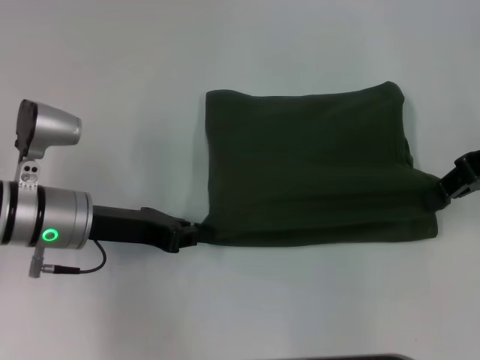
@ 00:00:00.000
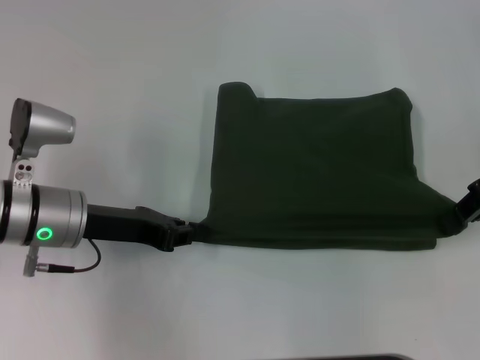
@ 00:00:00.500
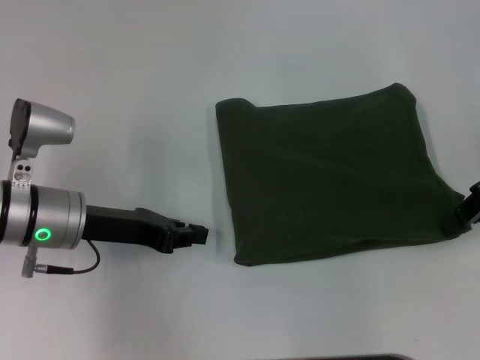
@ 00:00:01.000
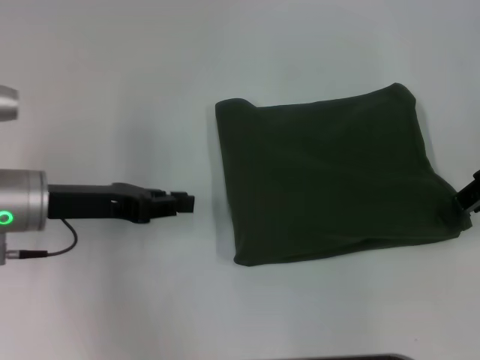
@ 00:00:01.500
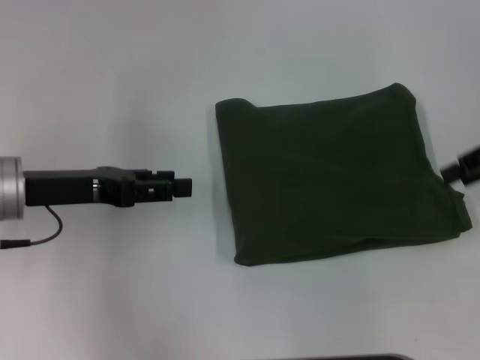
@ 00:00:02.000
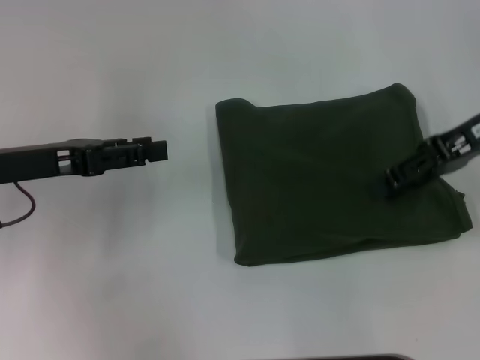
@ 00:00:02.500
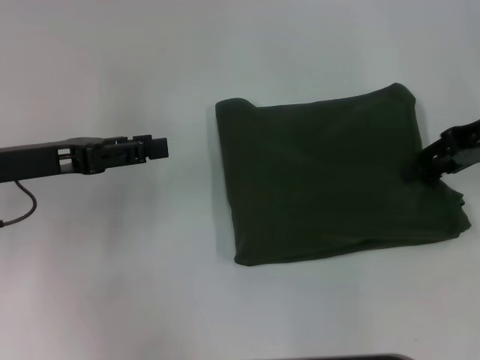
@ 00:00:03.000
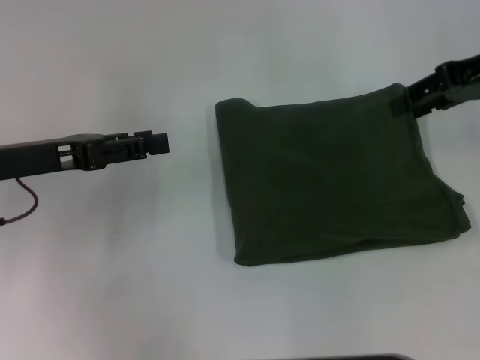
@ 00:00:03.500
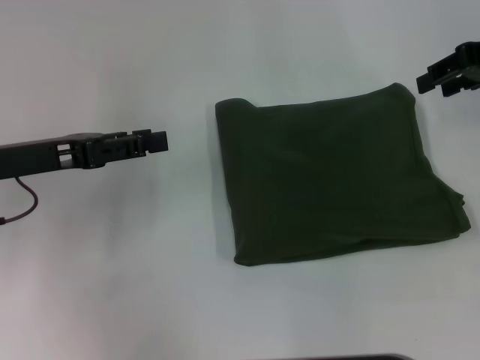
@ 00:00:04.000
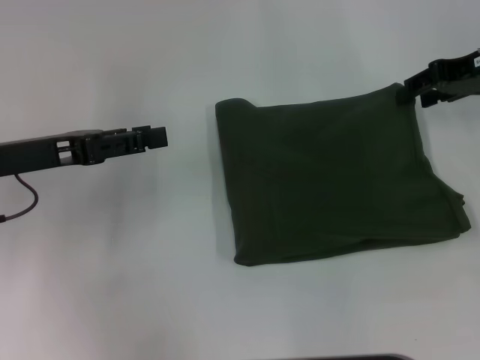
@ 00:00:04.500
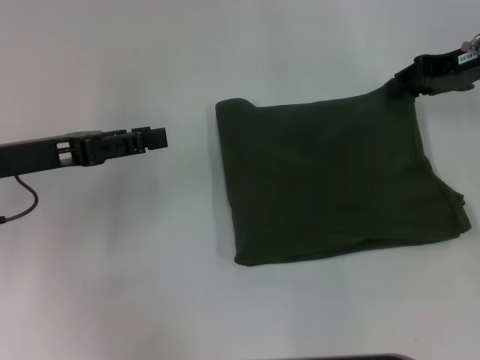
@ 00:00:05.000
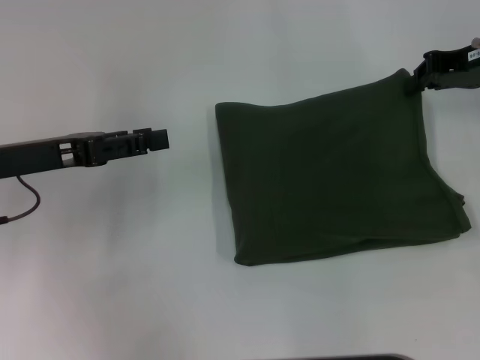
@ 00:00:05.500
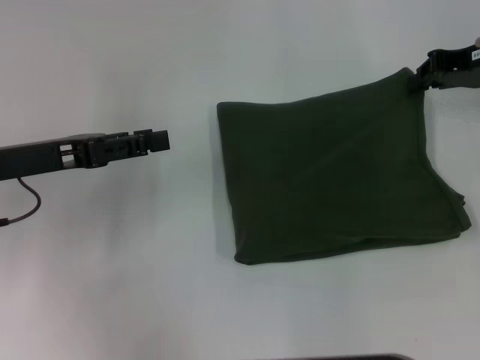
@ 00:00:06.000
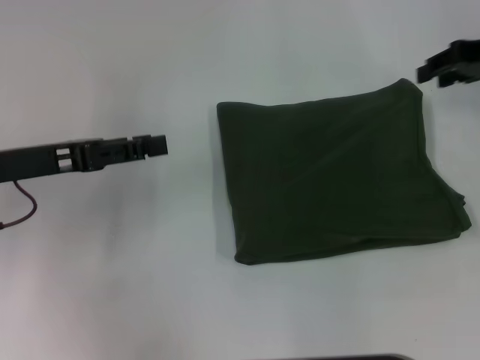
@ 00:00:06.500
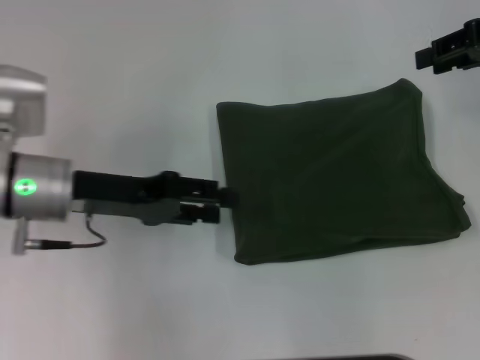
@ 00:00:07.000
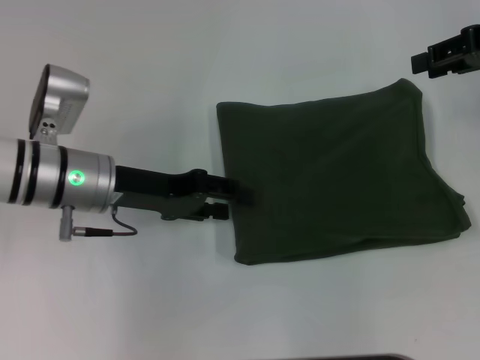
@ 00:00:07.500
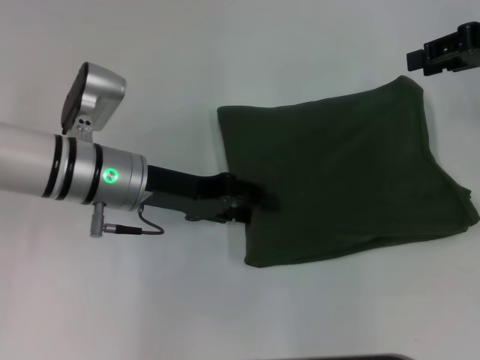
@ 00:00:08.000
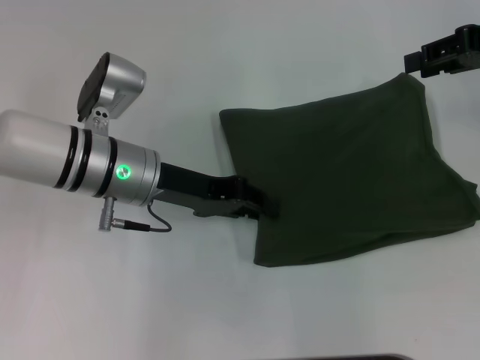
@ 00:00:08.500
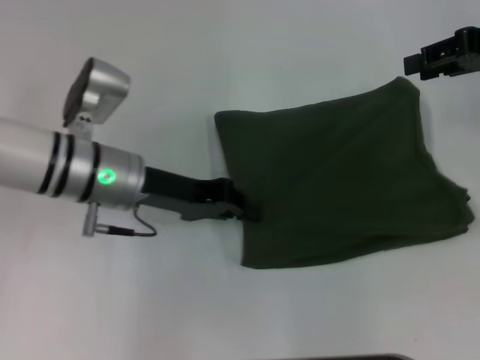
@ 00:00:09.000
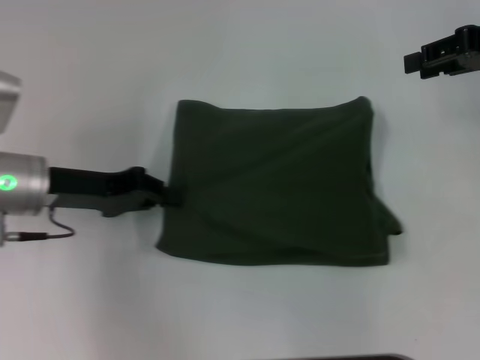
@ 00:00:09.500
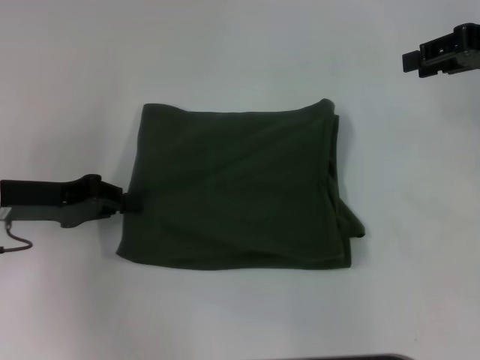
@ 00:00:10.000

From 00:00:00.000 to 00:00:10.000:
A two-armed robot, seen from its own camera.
From 00:00:00.000 to 00:00:02.000: The left gripper ends up approximately 5 cm from where it was, and opens. The right gripper opens.
From 00:00:02.000 to 00:00:04.000: The right gripper heads forward, covering about 5 cm.
From 00:00:04.000 to 00:00:06.000: The right gripper closes its fingers.
From 00:00:06.000 to 00:00:08.000: The right gripper ends up about 5 cm from where it was, and opens. The left gripper is displaced to the right by about 10 cm.
From 00:00:08.000 to 00:00:10.000: The left gripper moves to the left, approximately 15 cm, and closes up.

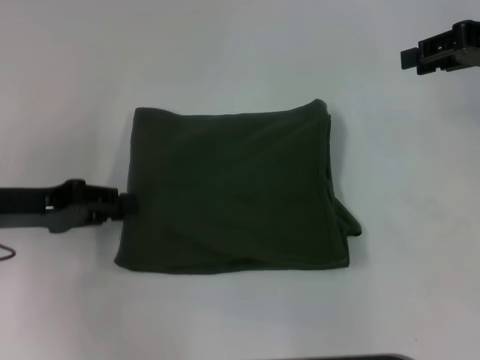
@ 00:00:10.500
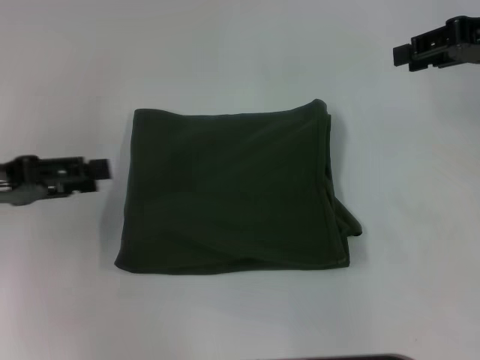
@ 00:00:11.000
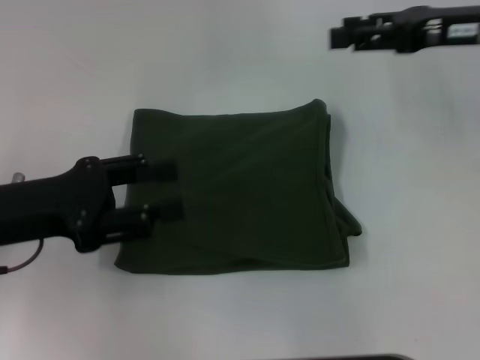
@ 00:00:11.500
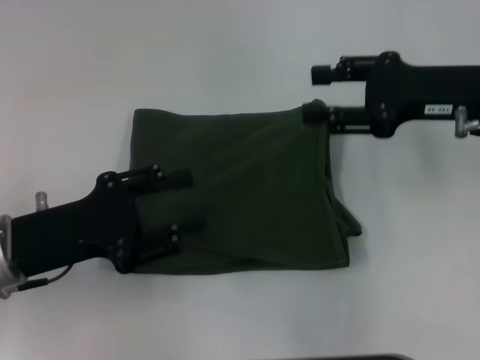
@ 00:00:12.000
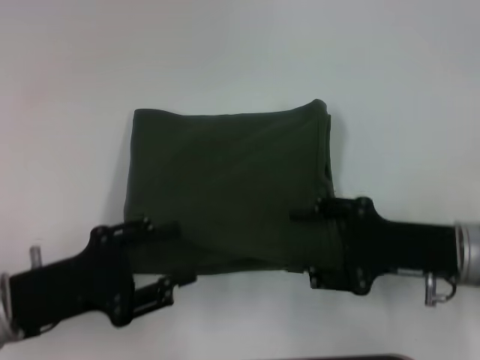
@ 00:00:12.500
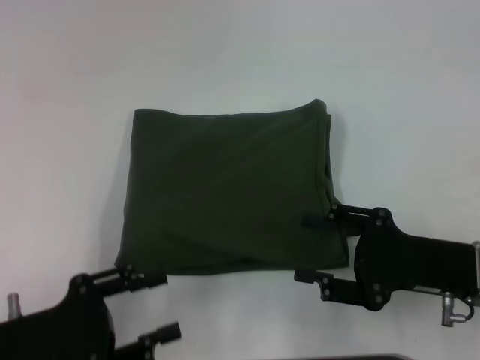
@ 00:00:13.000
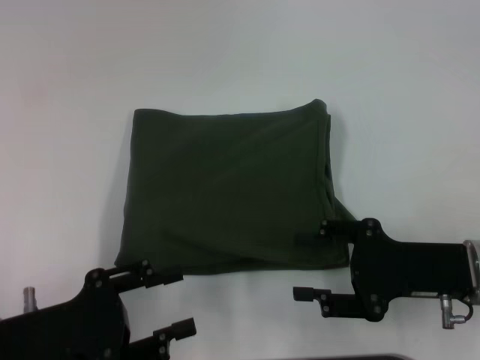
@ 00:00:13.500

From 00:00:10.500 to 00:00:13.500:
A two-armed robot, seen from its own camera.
From 00:00:10.500 to 00:00:12.000: The left gripper goes some 5 cm backward, and opens up; the right gripper is displaced to the left, downward and backward by roughly 10 cm.
From 00:00:12.000 to 00:00:13.500: The right gripper is displaced backward and downward by some 15 cm. Meanwhile the left gripper shifts some 5 cm backward.

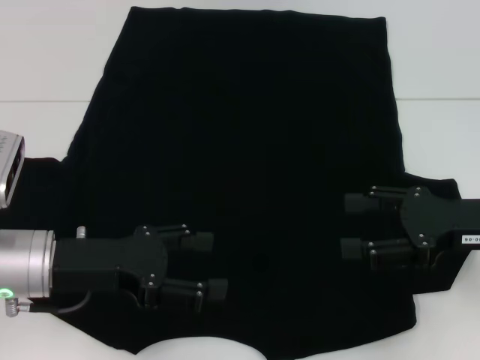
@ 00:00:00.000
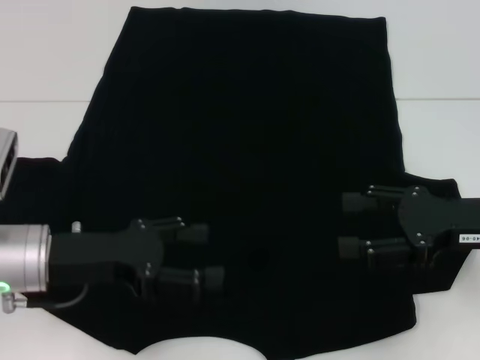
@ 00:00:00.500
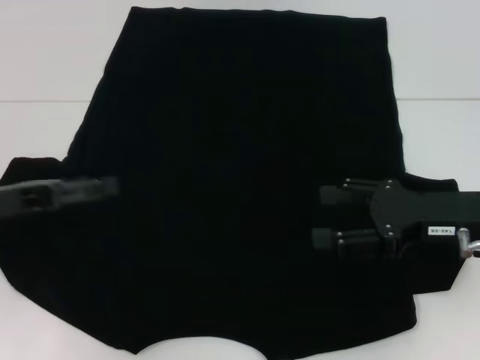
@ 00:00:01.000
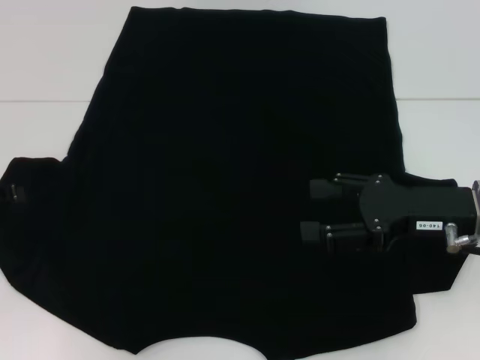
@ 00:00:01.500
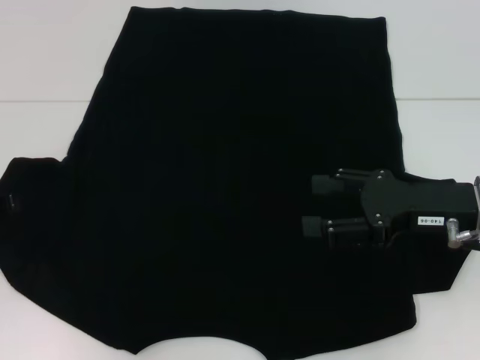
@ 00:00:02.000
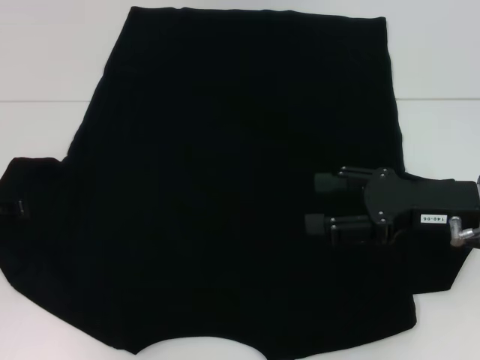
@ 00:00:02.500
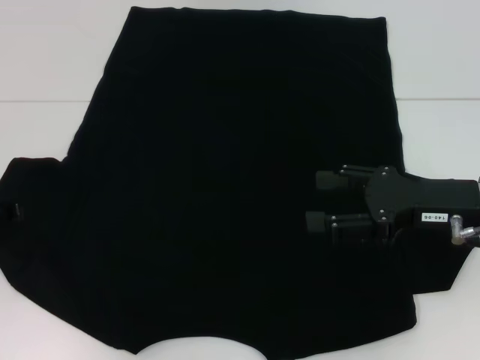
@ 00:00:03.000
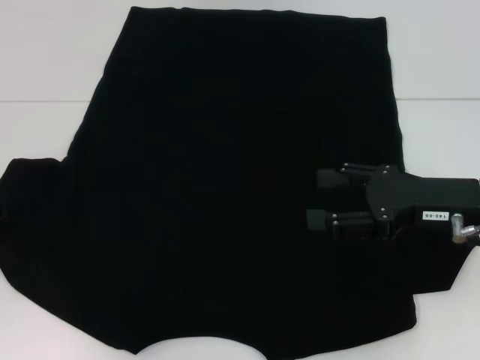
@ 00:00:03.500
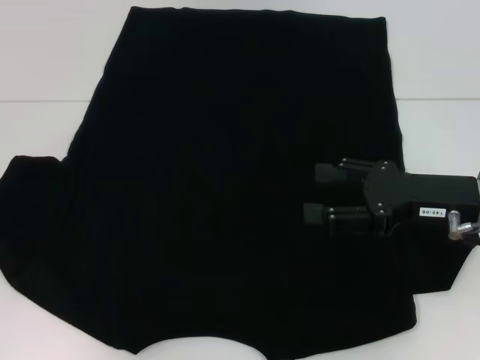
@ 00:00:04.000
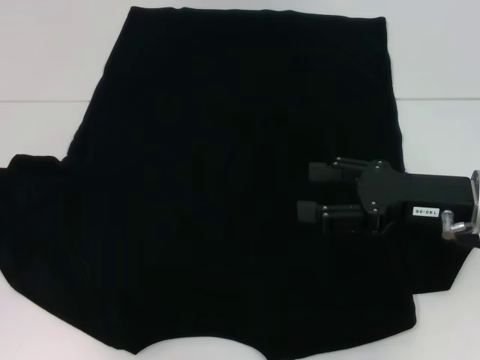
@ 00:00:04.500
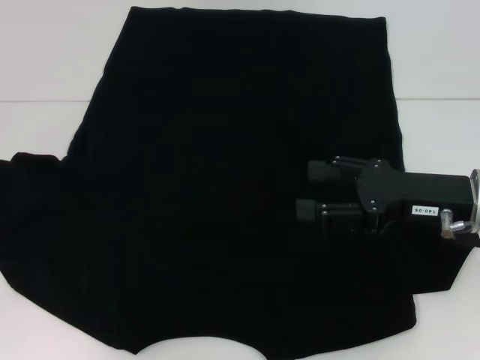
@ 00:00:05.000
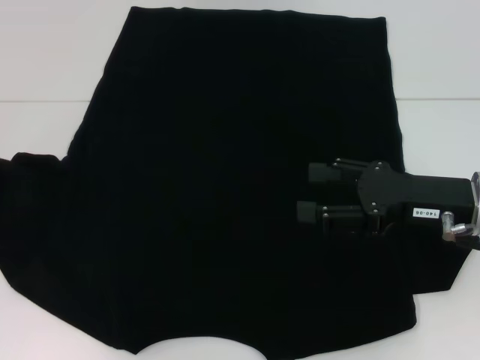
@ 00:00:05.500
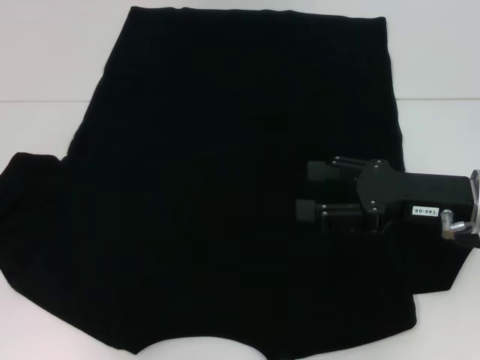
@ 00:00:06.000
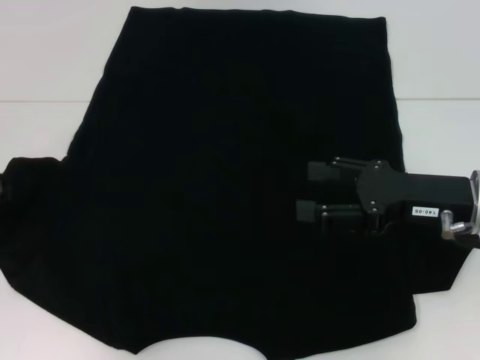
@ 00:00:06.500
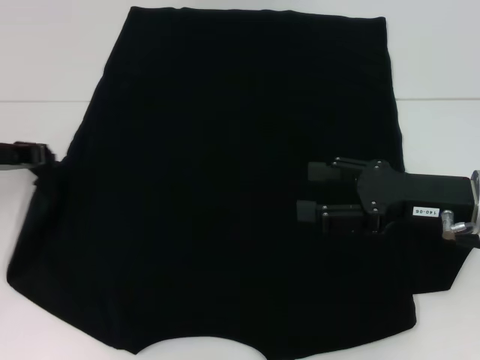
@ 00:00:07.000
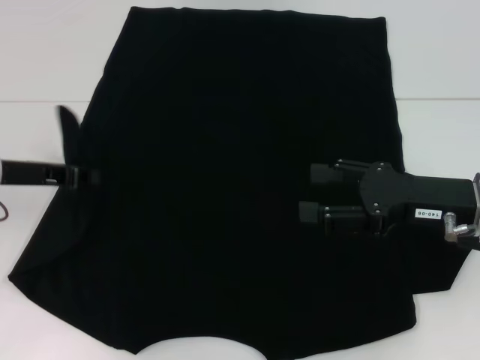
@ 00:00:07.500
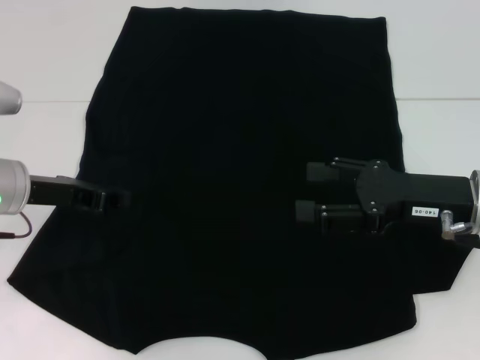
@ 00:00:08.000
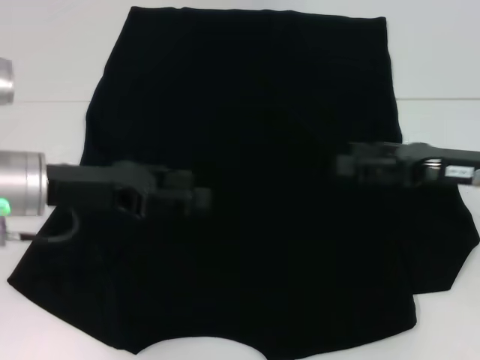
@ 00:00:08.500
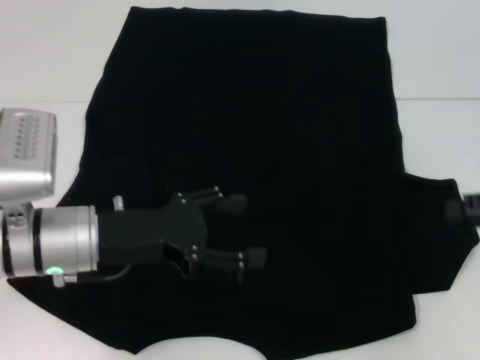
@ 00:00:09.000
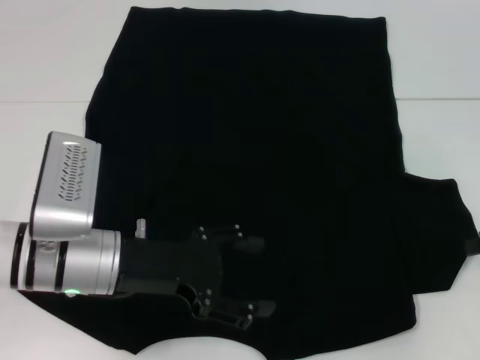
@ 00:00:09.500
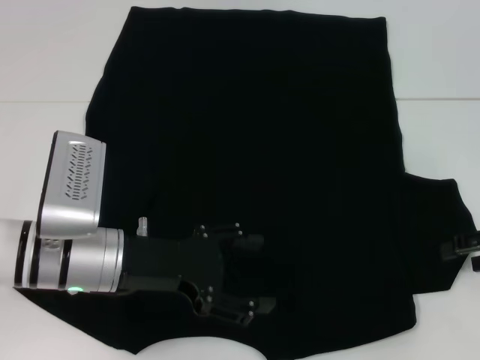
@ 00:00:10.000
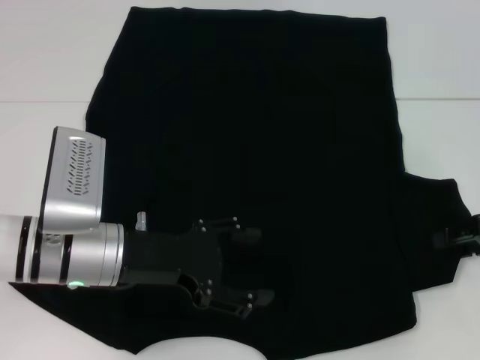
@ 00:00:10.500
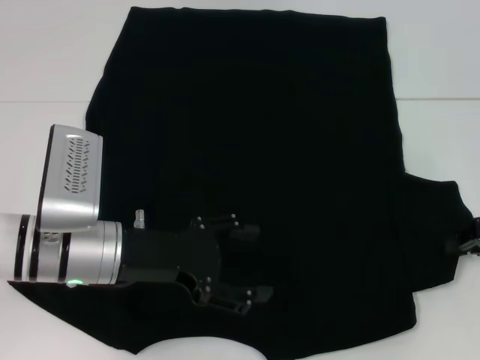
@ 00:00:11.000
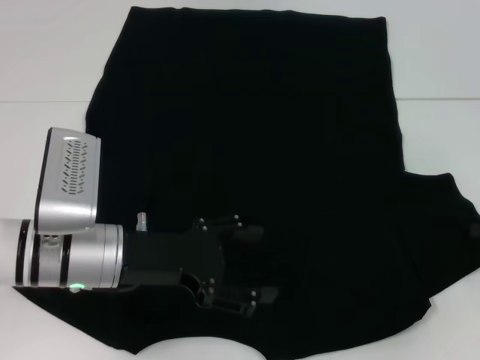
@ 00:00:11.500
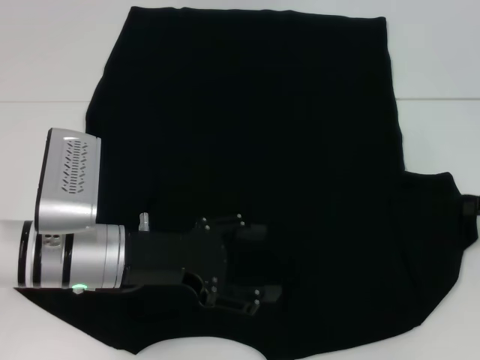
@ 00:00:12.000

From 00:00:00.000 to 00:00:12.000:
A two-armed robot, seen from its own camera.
Step, from 00:00:00.000 to 00:00:08.500: Fold the bottom left sleeve with your left hand.
From 00:00:00.000 to 00:00:02.000: The left gripper travels to the left by approximately 15 cm.
From 00:00:04.000 to 00:00:06.000: There are only small adjustments of the grippers.
From 00:00:06.000 to 00:00:08.000: The left gripper goes about 10 cm to the right.
From 00:00:08.000 to 00:00:10.000: The left gripper heads to the right and backward, covering approximately 10 cm, and opens its fingers, while the right gripper moves to the right, approximately 10 cm.
From 00:00:10.000 to 00:00:12.000: The right gripper closes.
